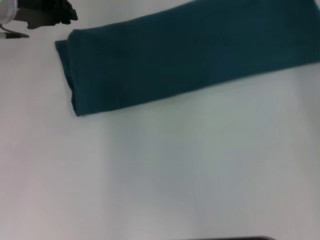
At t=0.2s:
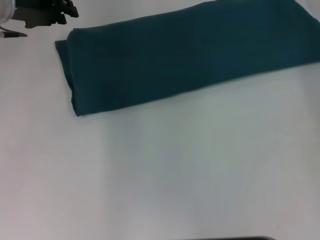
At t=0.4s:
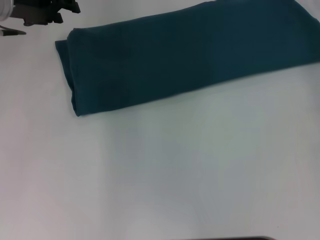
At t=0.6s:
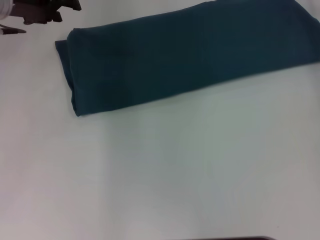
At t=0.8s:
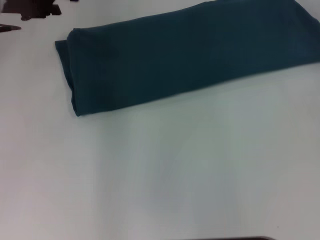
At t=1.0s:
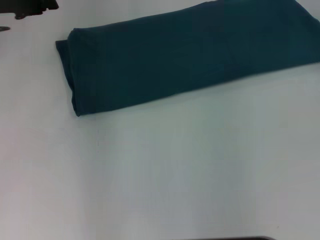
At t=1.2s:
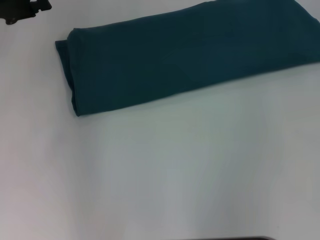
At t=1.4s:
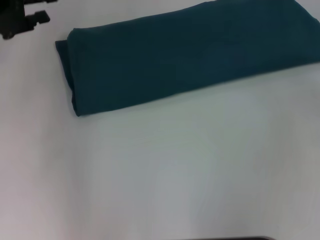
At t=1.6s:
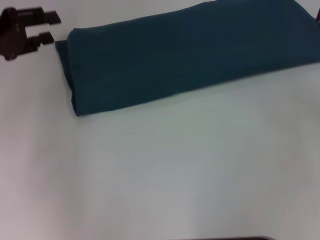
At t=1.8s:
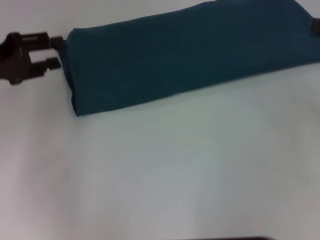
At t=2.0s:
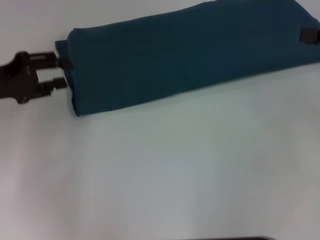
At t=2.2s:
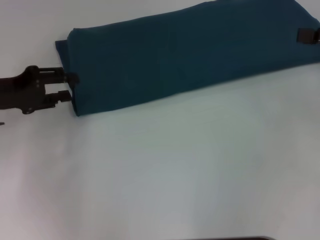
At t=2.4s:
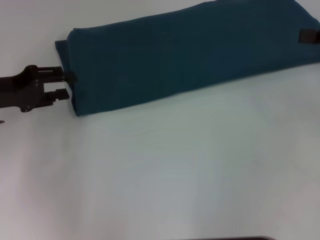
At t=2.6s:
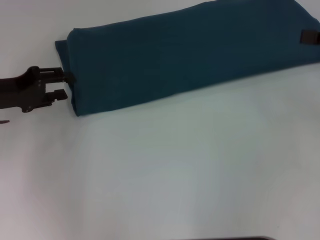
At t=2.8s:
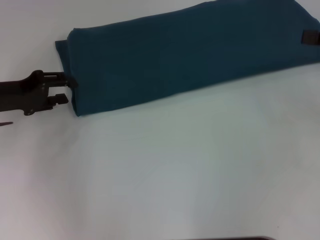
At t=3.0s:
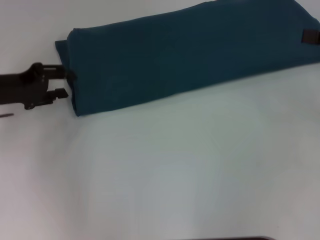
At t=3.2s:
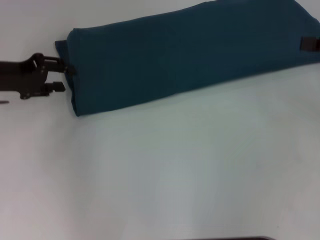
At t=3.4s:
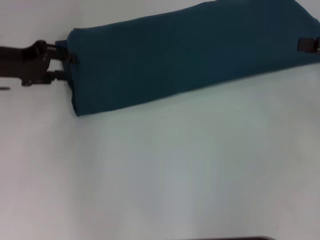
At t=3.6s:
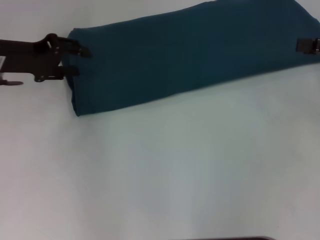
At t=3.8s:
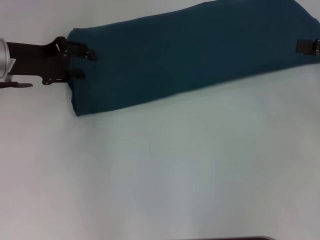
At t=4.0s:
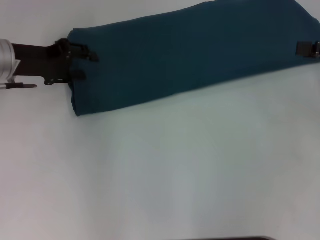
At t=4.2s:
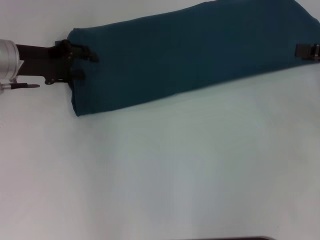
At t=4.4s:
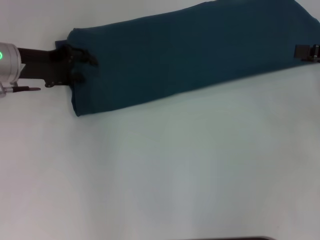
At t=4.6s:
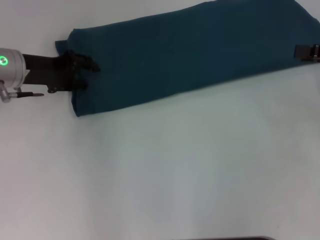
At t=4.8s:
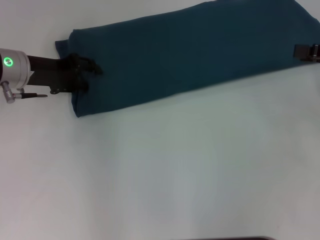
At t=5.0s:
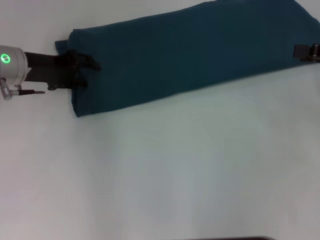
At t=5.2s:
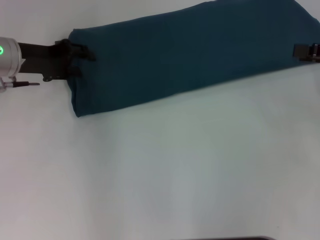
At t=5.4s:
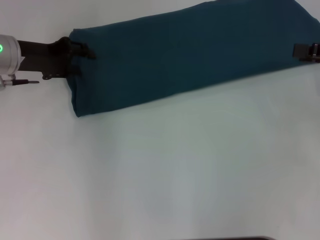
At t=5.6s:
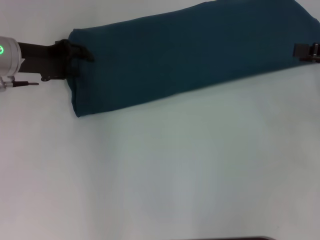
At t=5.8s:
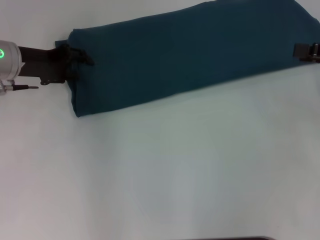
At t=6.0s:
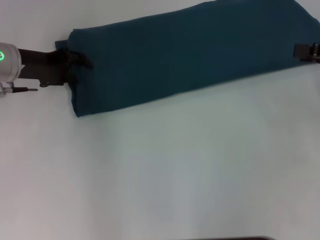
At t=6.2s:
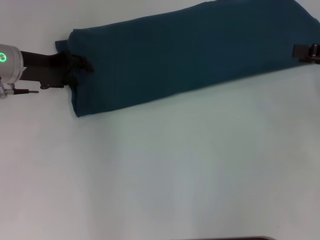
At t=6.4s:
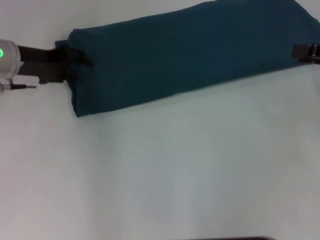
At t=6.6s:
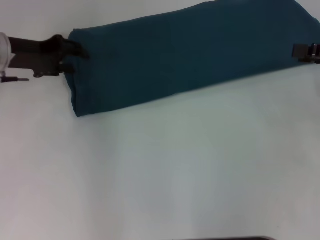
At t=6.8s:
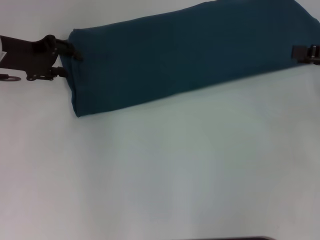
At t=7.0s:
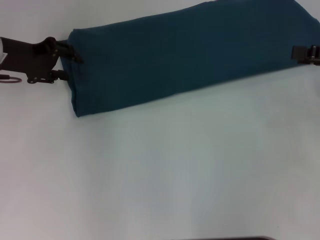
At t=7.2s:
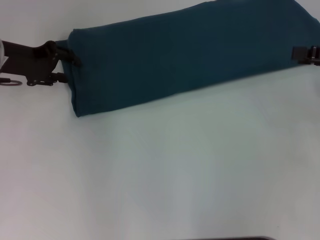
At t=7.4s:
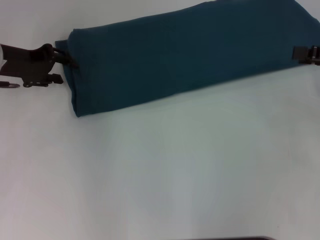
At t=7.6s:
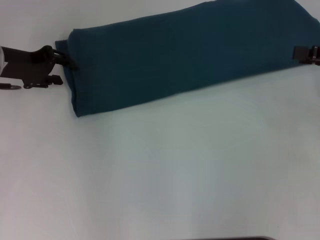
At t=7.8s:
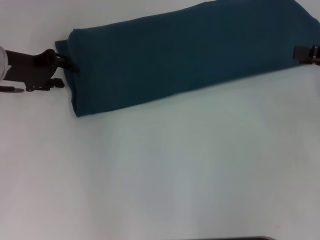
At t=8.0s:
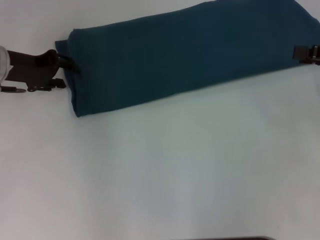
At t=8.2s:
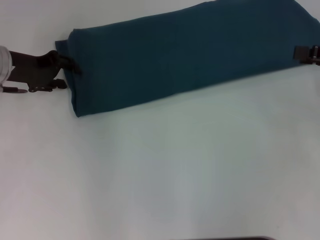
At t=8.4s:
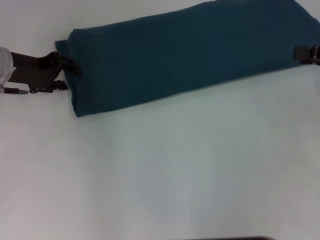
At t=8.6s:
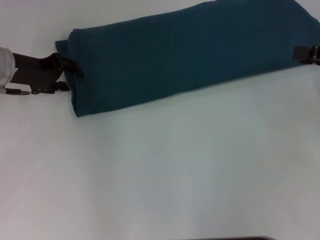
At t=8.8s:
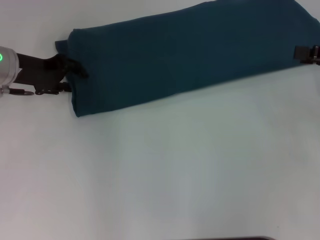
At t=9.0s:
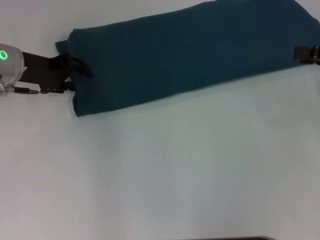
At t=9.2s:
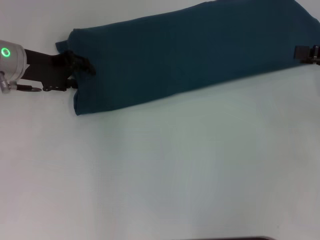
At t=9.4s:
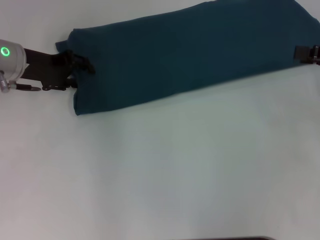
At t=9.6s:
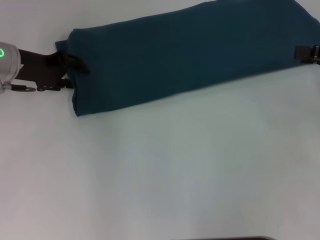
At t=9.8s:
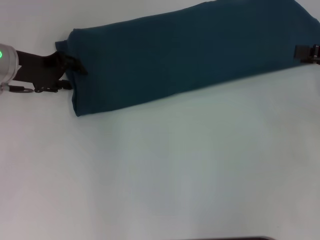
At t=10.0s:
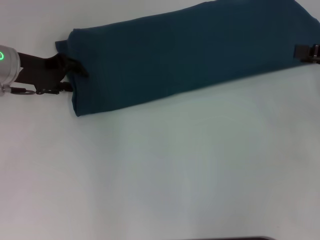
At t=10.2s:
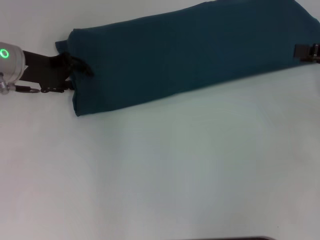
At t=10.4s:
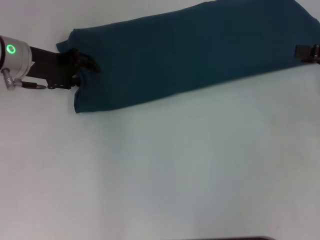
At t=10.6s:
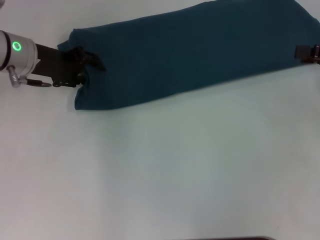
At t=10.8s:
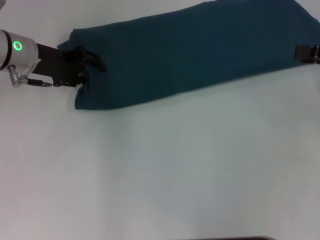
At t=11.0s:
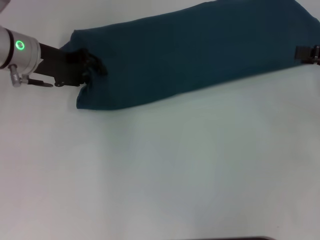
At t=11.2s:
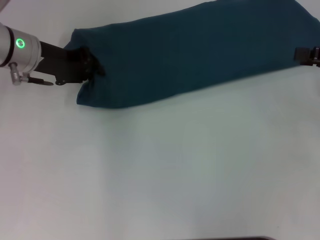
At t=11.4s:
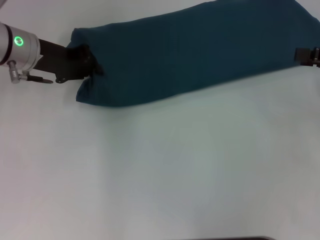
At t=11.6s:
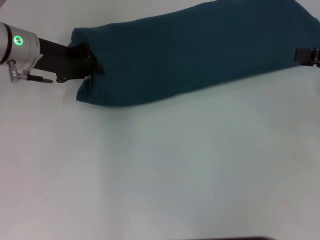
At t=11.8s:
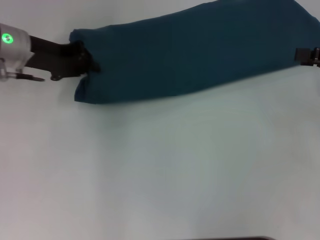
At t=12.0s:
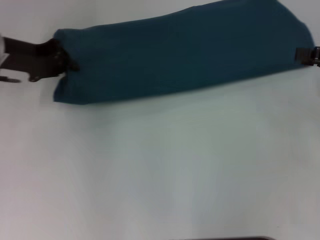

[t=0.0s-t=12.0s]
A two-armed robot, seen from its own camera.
Step, t=0.0s to t=0.4s: Fold the clothes to the right.
t=0.0s to t=1.6s: The right gripper shifts about 20 cm backward and to the right, and opens its fingers. Meanwhile the left gripper shifts approximately 10 cm backward and to the left, and opens up.
t=1.6s to t=3.0s: The left gripper travels downward by approximately 5 cm.
t=3.0s to t=4.4s: The left gripper moves forward, about 5 cm.
t=6.0s to t=9.0s: The grippers make only small movements.
t=9.0s to t=10.4s: The two grippers keep their place.
t=10.4s to t=12.0s: The left gripper closes up.

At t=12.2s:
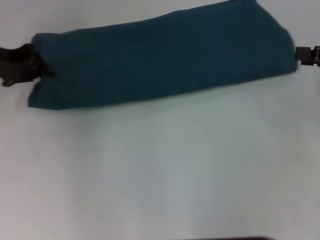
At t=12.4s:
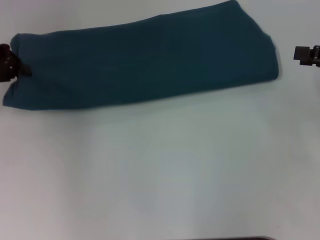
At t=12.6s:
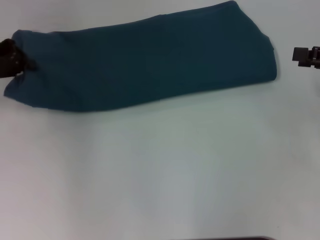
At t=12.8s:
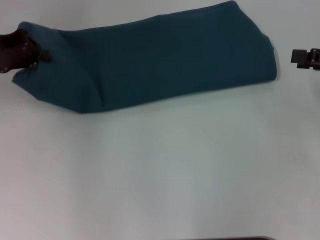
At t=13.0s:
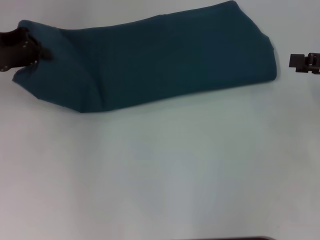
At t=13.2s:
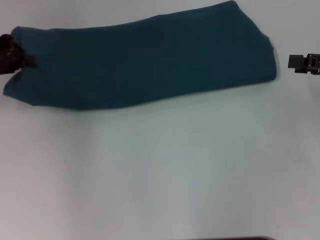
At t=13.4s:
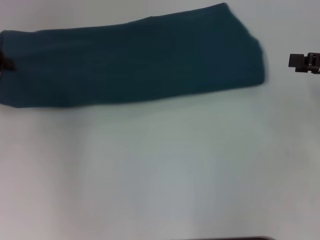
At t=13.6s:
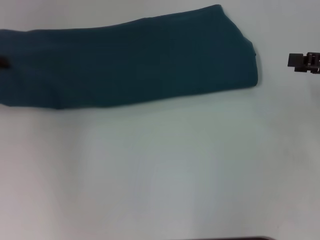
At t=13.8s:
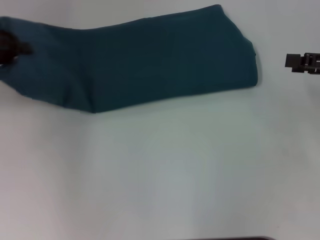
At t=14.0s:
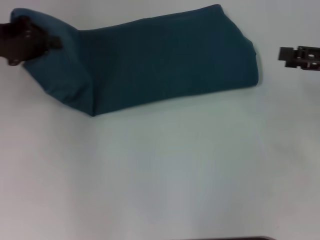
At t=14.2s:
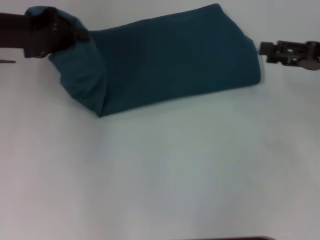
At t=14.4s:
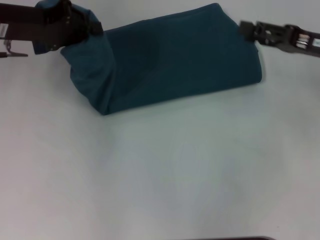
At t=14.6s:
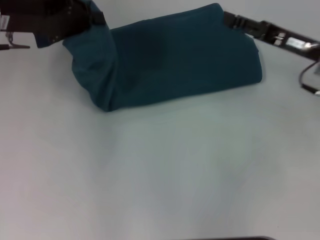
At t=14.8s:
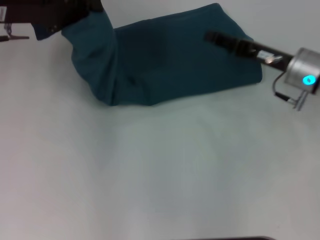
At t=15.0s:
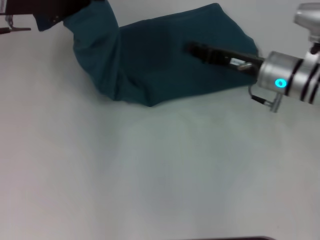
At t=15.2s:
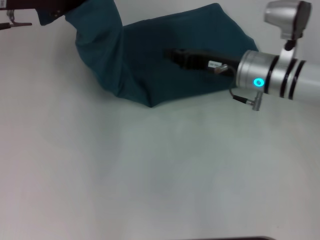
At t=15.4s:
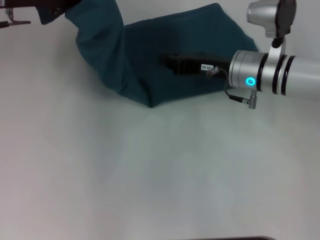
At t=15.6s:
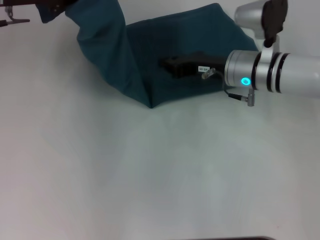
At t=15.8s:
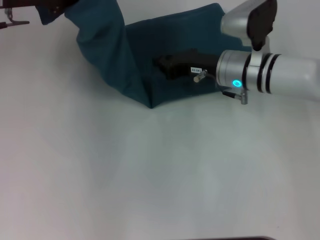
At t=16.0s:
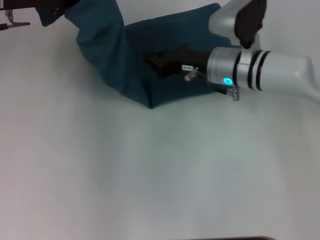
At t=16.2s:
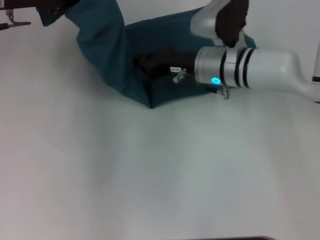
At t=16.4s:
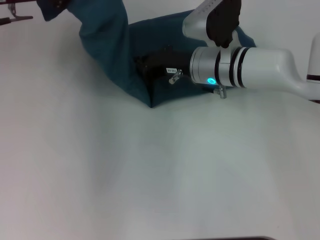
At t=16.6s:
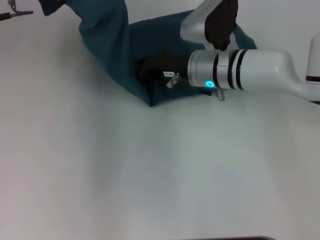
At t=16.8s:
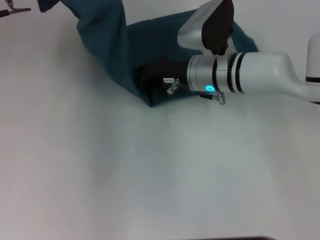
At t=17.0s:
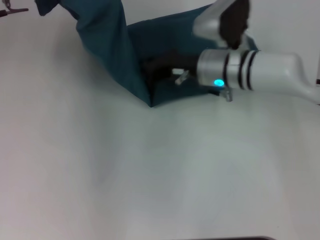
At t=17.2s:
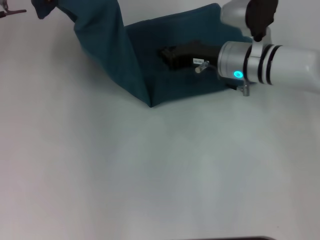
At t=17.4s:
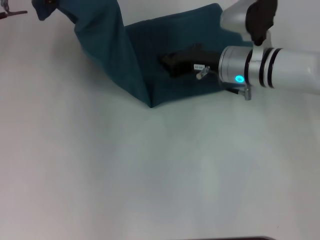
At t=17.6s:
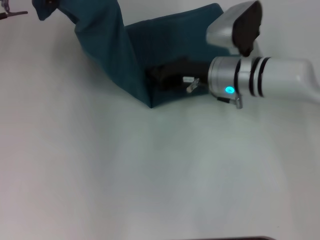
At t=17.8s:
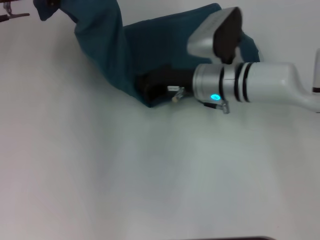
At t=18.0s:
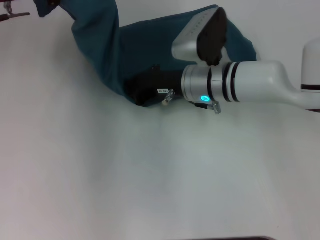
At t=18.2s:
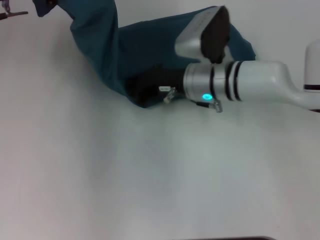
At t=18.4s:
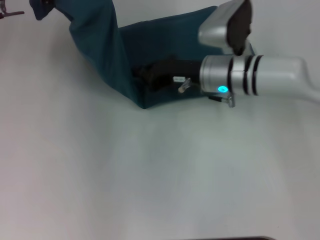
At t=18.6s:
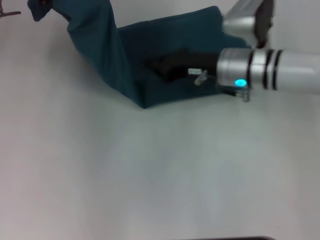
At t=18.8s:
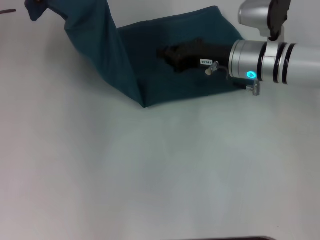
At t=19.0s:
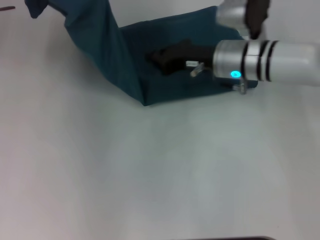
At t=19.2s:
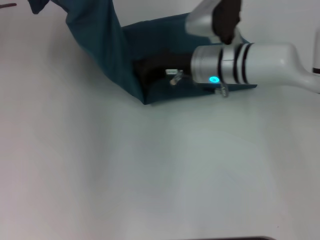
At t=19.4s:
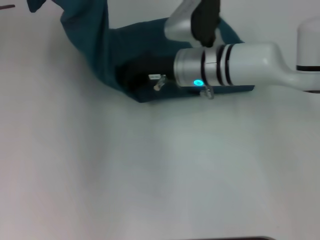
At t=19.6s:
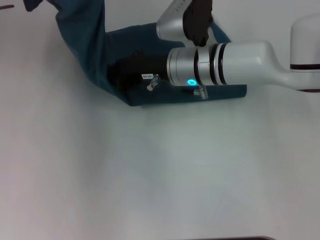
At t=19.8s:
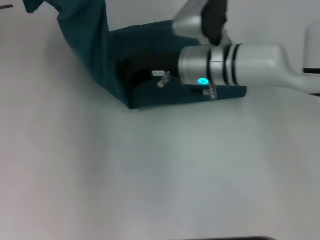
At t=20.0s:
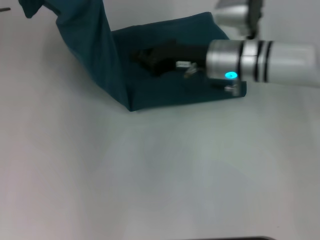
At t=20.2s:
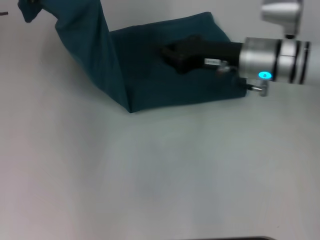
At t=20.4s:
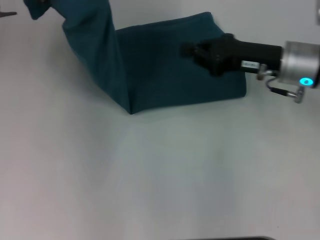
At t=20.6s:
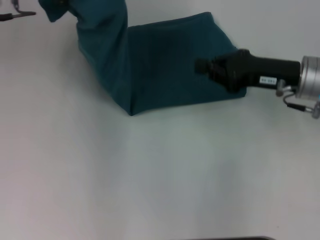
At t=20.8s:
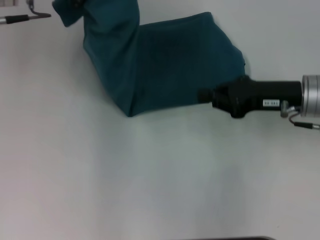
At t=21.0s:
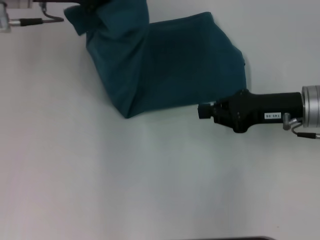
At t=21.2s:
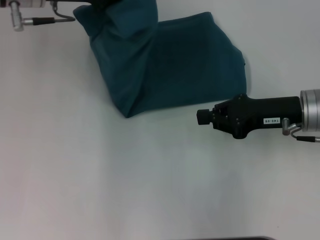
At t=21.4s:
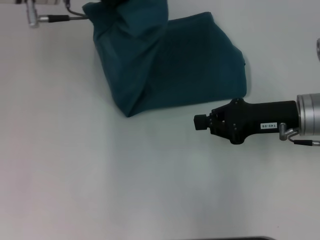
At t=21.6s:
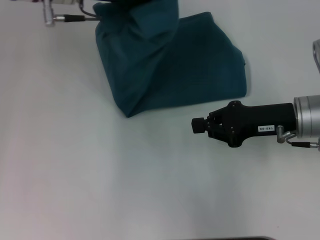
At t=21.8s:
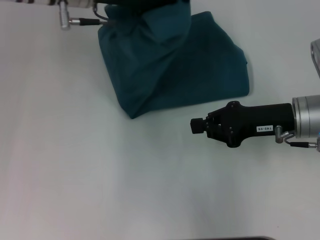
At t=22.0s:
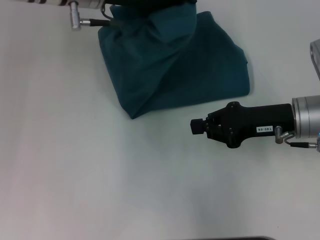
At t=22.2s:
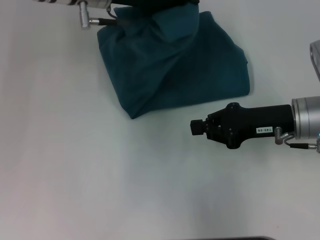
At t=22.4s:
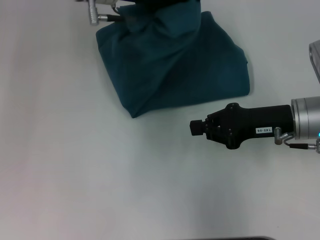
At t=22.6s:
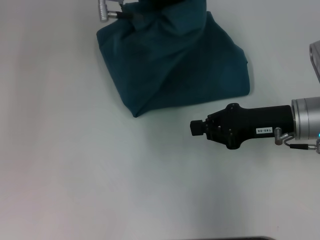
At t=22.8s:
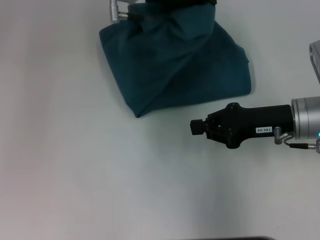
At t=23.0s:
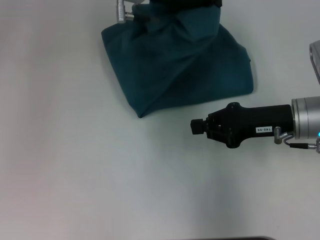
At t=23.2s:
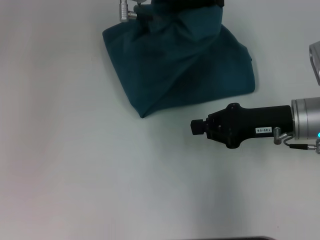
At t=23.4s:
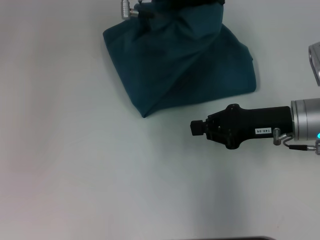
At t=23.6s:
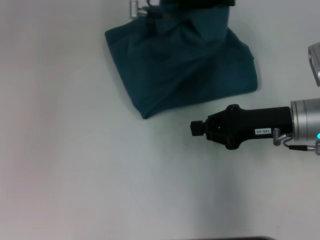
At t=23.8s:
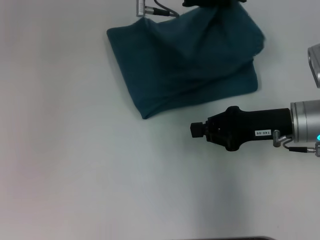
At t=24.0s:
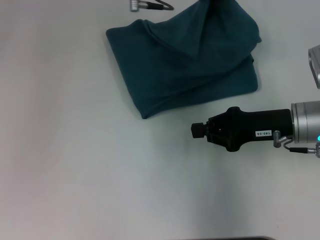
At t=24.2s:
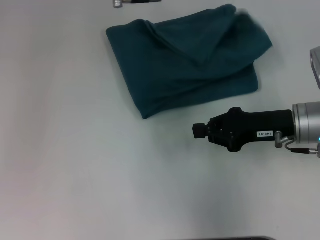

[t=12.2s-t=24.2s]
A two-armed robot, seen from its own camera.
Step, t=12.2s to t=20.0s: Press the middle of the clothes with your right hand.
t=13.8s to t=15.2s: The left gripper shifts roughly 10 cm to the right; the right gripper moves to the left, approximately 20 cm, and closes.
t=15.2s to t=16.6s: The right gripper is displaced to the left by about 5 cm.
t=16.6s to t=18.2s: The grippers make only small movements.
t=18.2s to t=19.8s: The right gripper moves roughly 5 cm to the right and comes back.
t=19.8s to t=21.2s: The right gripper shifts roughly 15 cm to the right and backward. Meanwhile the left gripper shifts about 10 cm to the right.
t=21.2s to t=22.6s: The left gripper shifts some 10 cm to the right.
t=22.6s to t=24.2s: The left gripper opens up.
